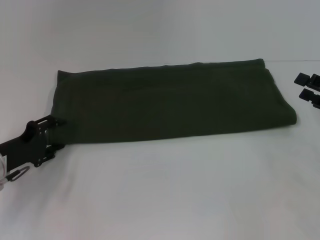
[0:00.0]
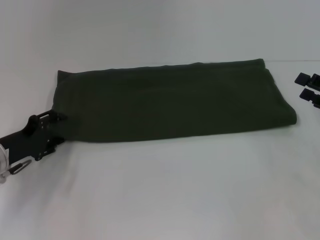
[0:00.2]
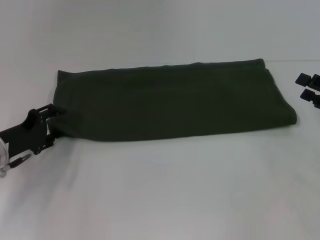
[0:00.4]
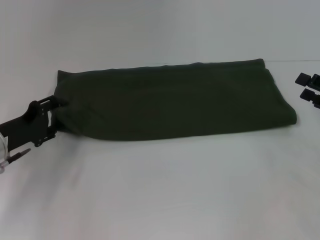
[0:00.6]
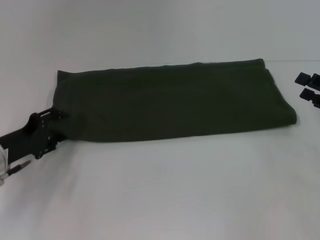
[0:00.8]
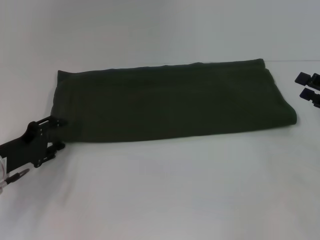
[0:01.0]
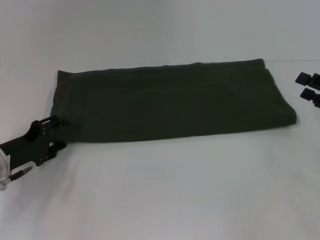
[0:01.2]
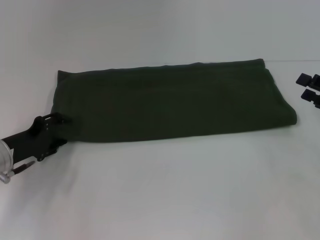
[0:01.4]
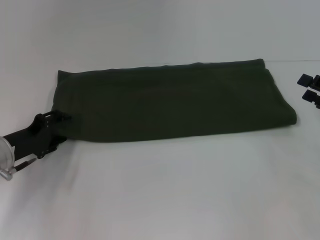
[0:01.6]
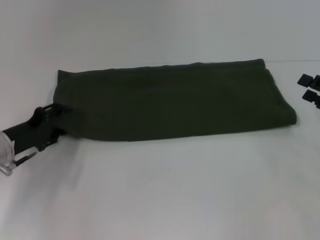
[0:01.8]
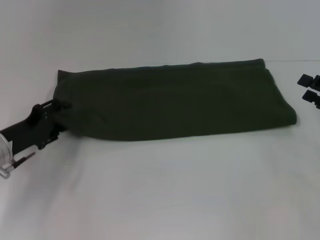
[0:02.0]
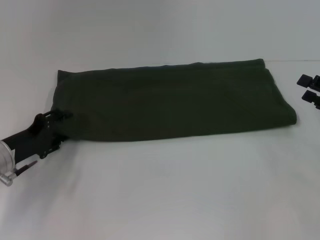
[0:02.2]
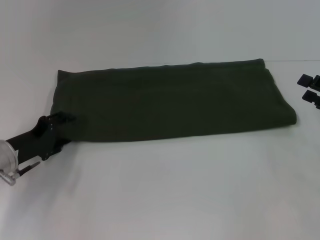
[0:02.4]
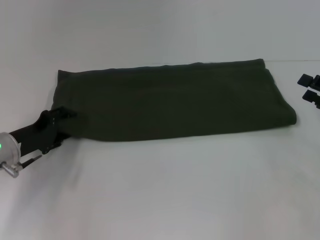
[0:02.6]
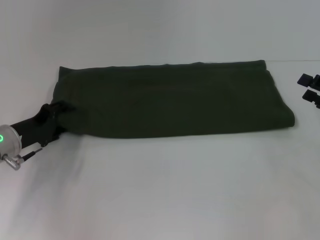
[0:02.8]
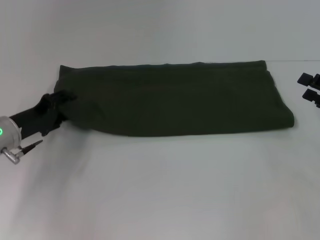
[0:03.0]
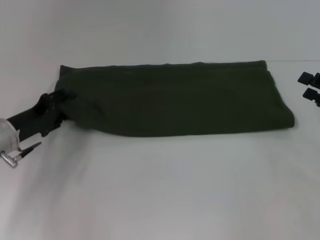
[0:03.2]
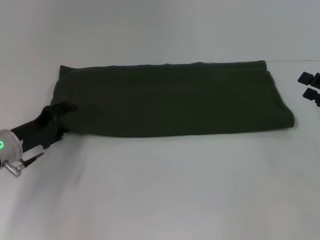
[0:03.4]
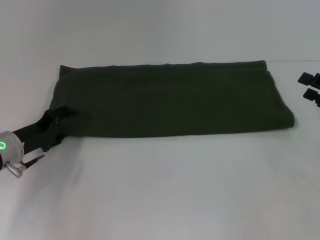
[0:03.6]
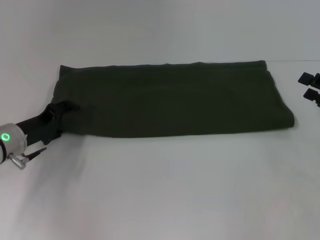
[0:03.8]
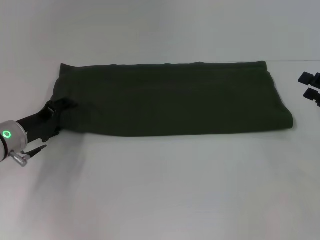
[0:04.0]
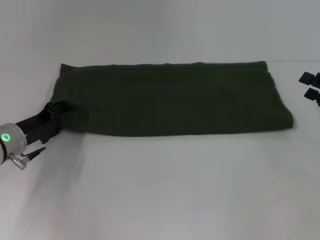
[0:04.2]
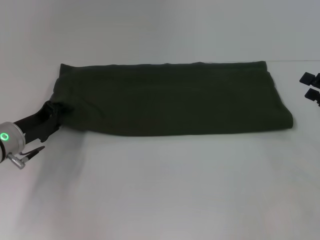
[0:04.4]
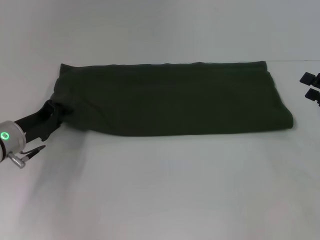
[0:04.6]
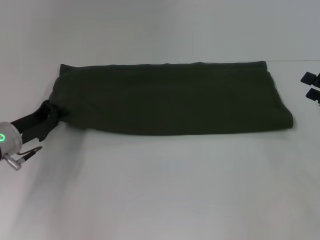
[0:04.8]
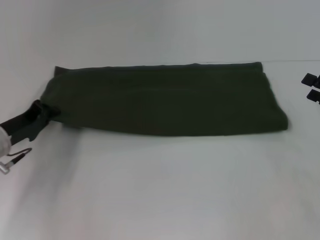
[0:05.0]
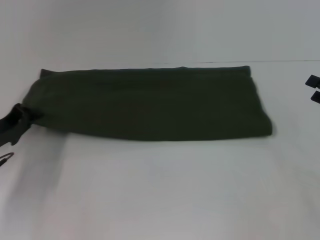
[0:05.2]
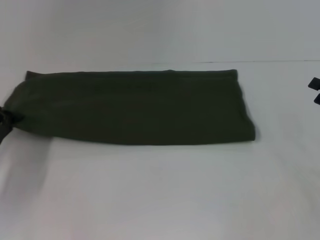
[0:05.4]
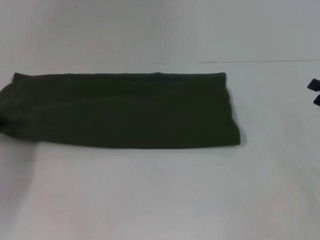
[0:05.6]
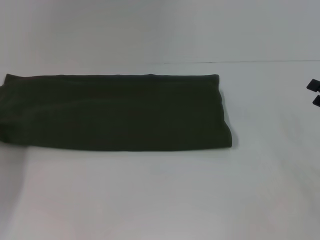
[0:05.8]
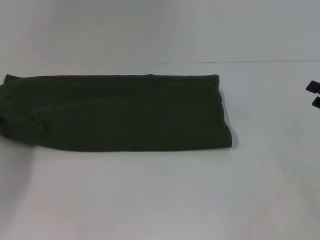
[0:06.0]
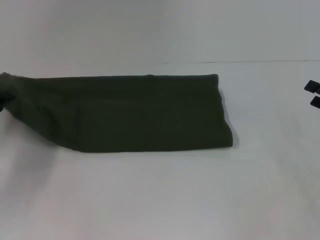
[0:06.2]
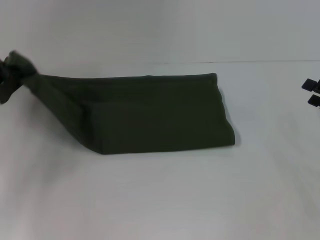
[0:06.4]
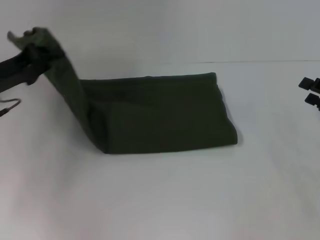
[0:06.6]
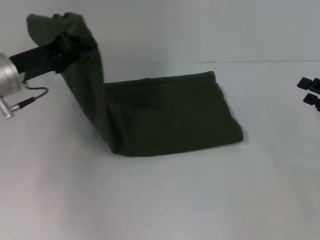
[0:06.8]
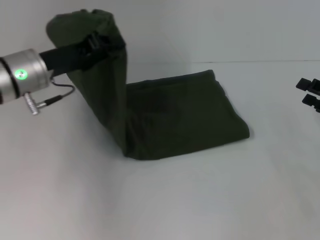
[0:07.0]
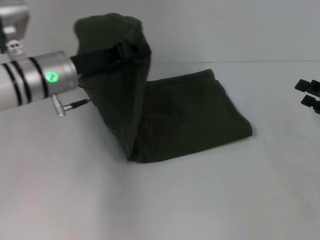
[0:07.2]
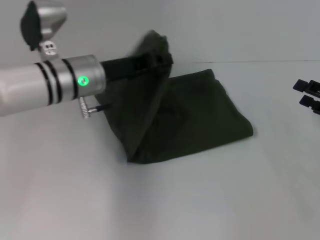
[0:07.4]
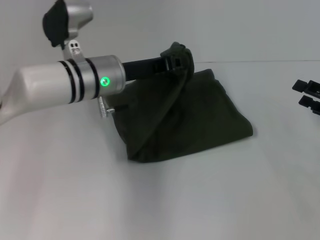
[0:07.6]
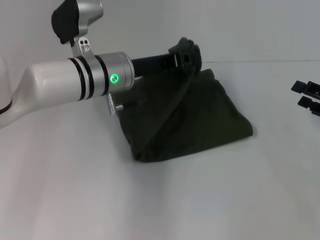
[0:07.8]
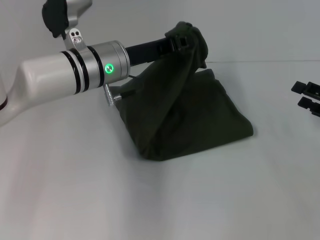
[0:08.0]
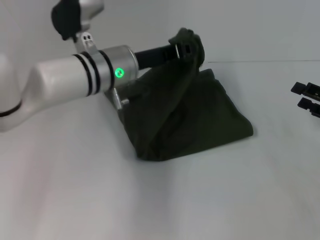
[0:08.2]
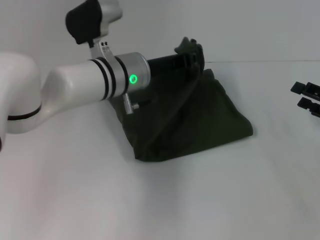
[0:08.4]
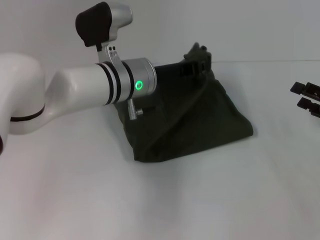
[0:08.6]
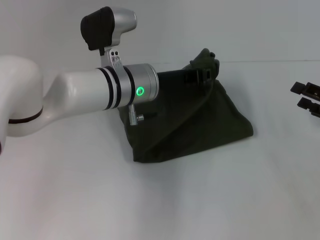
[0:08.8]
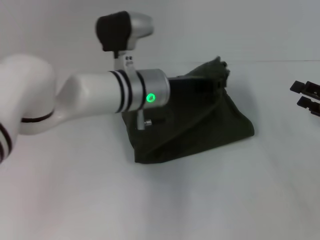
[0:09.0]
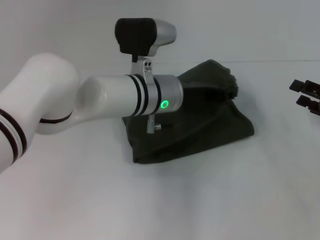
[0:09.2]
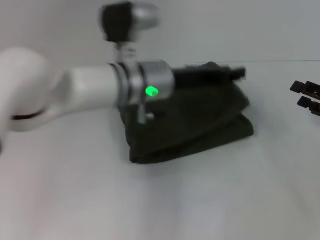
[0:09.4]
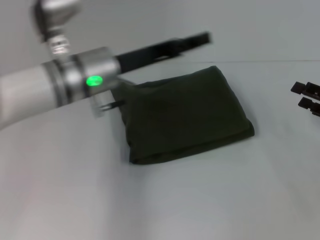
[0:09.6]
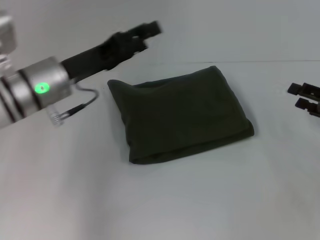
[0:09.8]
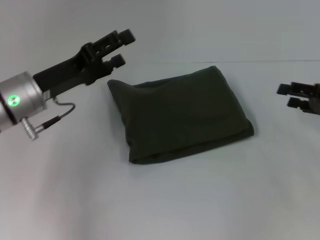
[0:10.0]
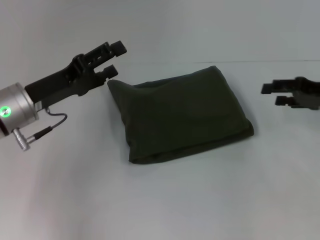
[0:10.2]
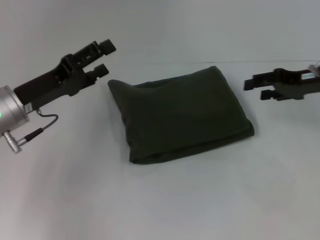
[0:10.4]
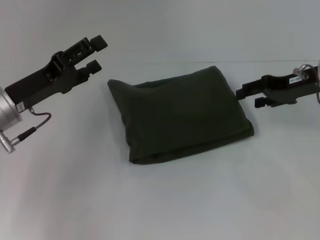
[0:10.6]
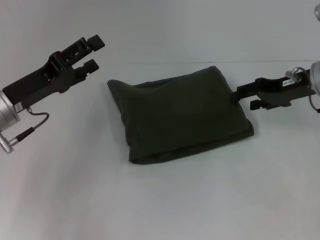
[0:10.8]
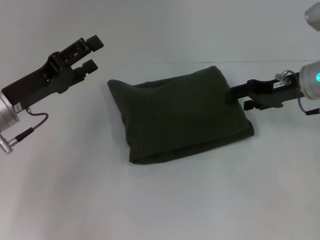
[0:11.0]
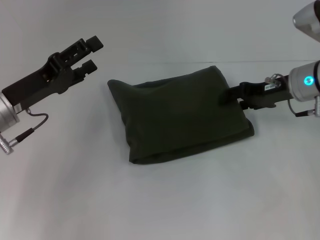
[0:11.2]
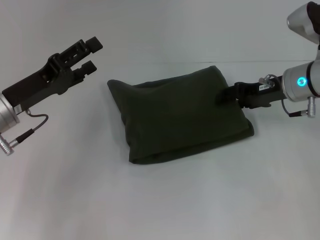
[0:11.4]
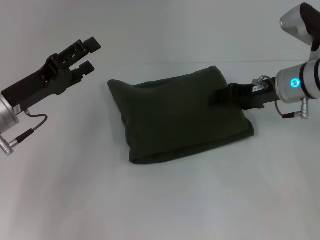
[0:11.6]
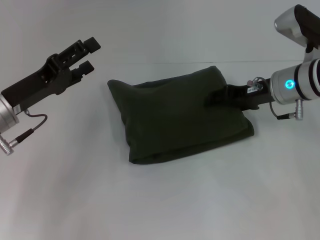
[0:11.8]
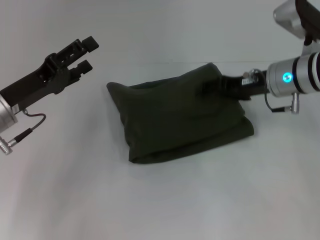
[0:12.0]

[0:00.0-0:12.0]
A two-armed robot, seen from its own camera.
Step, 0:00.0 to 0:09.4: Fold the clothes with your left hand.
0:00.0 to 0:04.4: There are only small adjustments of the grippers.
0:04.4 to 0:06.0: The left gripper travels to the left and backward by roughly 10 cm, and closes.
0:06.0 to 0:07.6: The left gripper travels to the right and forward by roughly 25 cm.
0:07.6 to 0:09.0: The left gripper shifts approximately 5 cm to the right.
0:09.0 to 0:10.4: The right gripper moves forward, upward and to the left, about 15 cm. The left gripper heads to the left, covering roughly 20 cm, and opens its fingers.
0:10.4 to 0:12.0: The right gripper travels to the left by about 10 cm.

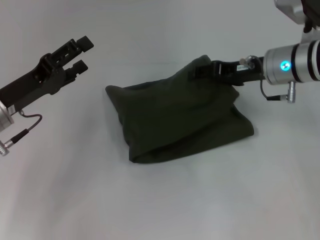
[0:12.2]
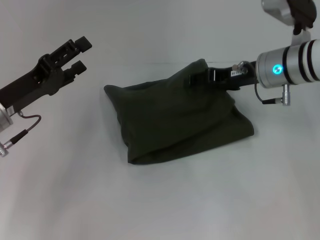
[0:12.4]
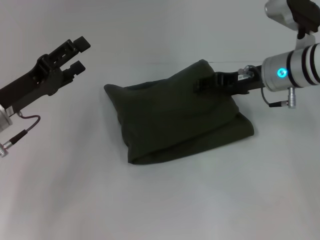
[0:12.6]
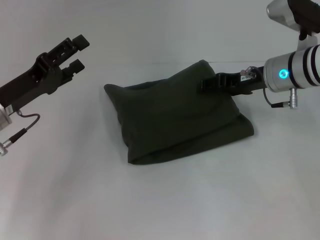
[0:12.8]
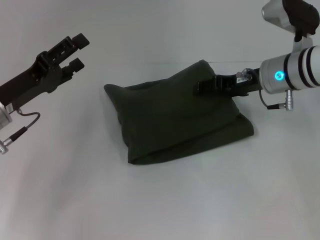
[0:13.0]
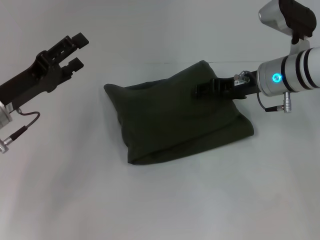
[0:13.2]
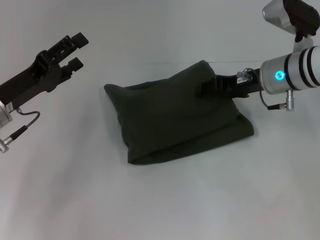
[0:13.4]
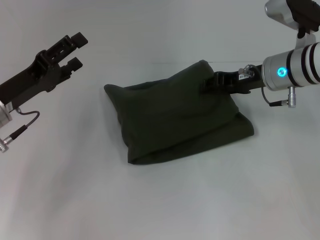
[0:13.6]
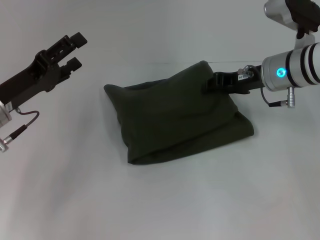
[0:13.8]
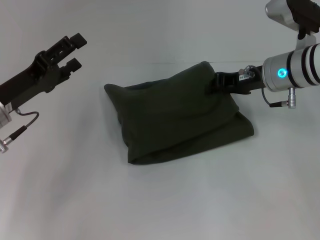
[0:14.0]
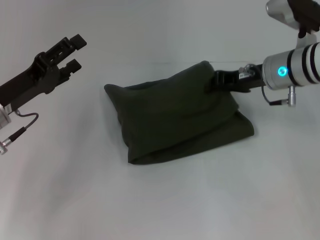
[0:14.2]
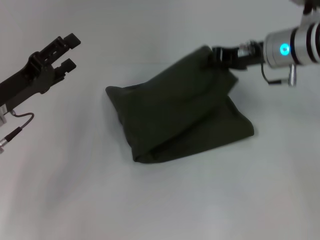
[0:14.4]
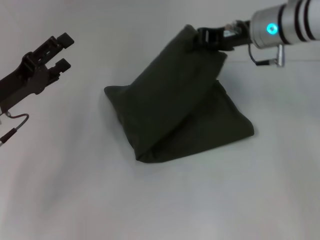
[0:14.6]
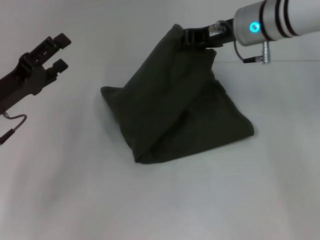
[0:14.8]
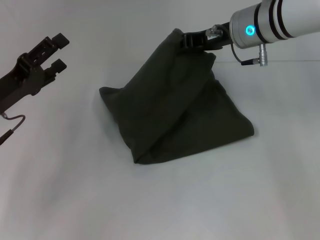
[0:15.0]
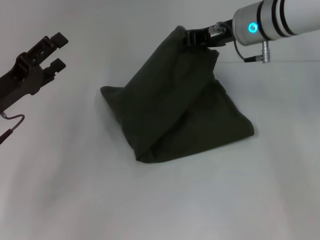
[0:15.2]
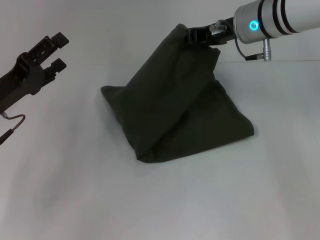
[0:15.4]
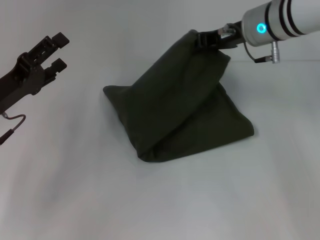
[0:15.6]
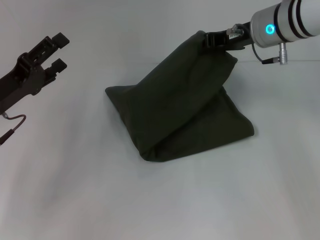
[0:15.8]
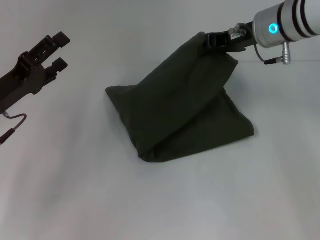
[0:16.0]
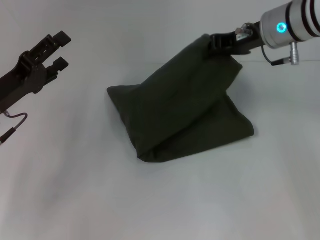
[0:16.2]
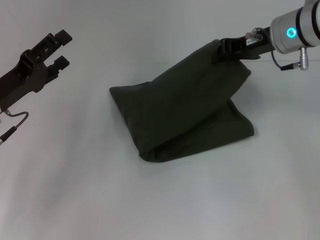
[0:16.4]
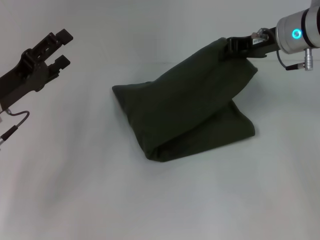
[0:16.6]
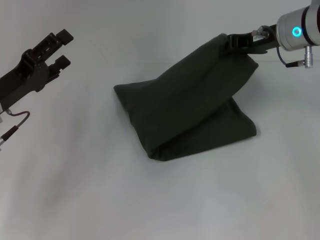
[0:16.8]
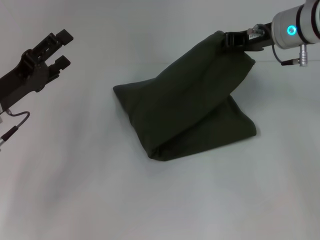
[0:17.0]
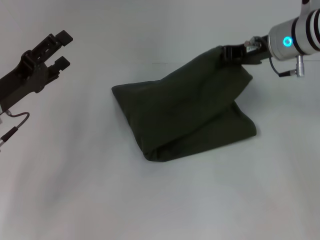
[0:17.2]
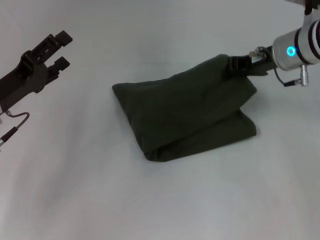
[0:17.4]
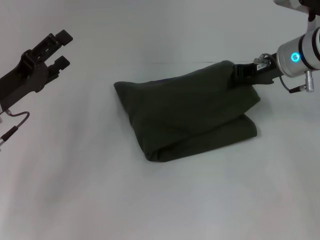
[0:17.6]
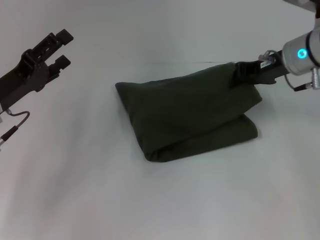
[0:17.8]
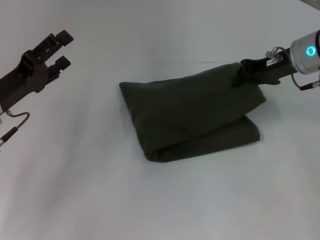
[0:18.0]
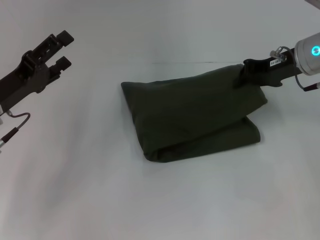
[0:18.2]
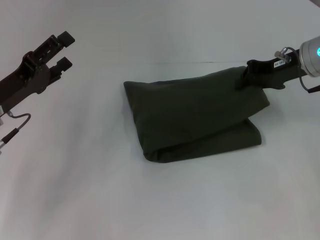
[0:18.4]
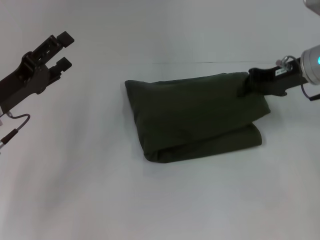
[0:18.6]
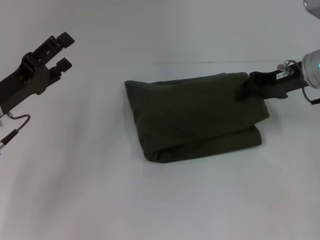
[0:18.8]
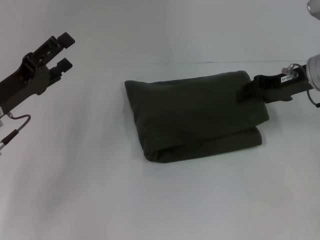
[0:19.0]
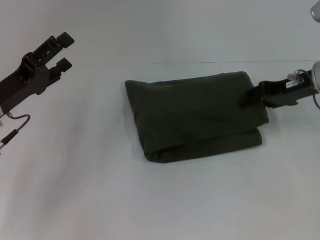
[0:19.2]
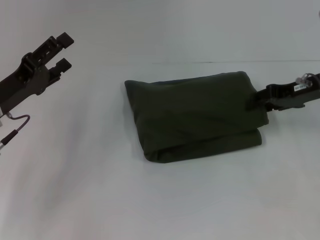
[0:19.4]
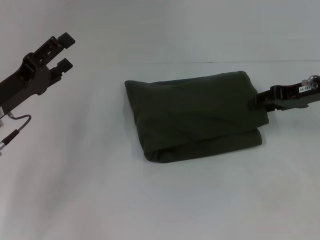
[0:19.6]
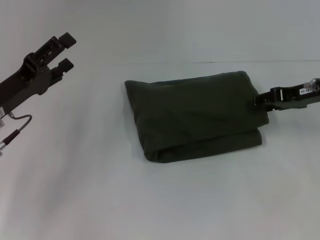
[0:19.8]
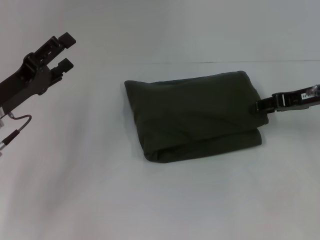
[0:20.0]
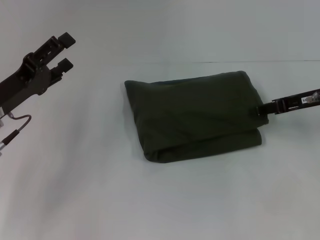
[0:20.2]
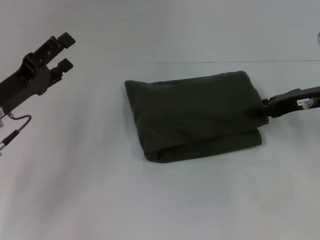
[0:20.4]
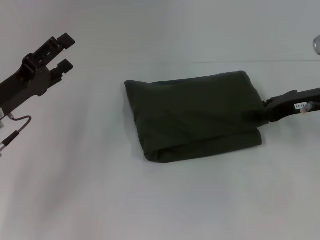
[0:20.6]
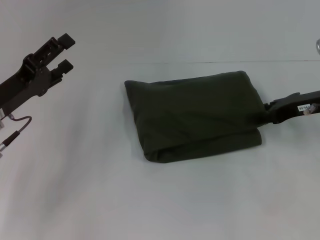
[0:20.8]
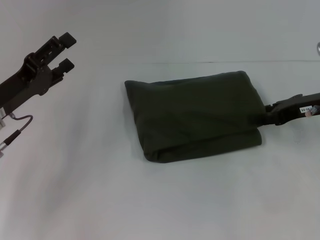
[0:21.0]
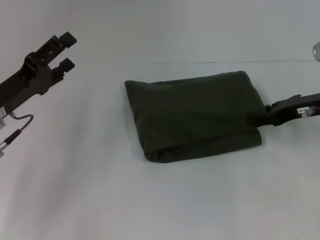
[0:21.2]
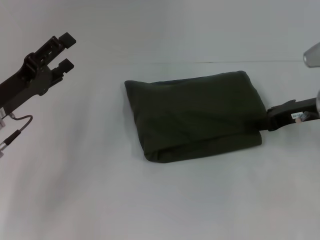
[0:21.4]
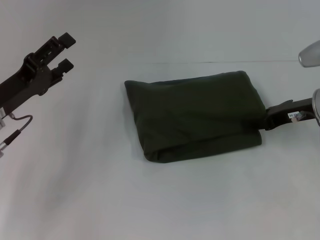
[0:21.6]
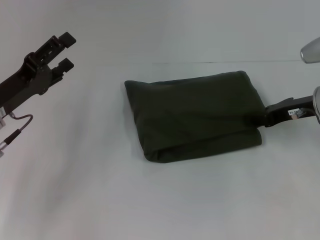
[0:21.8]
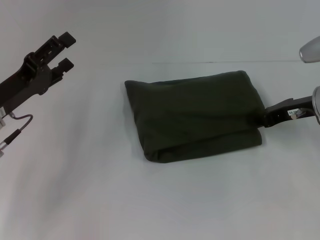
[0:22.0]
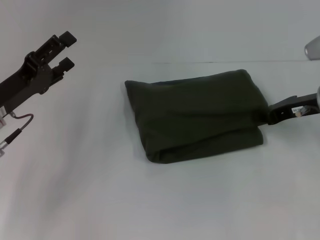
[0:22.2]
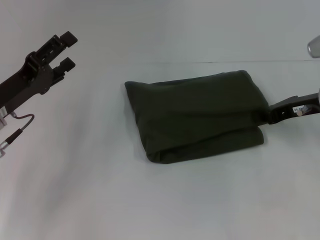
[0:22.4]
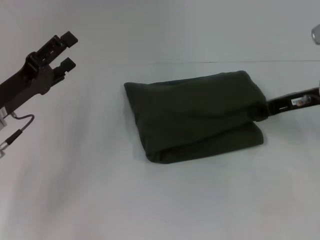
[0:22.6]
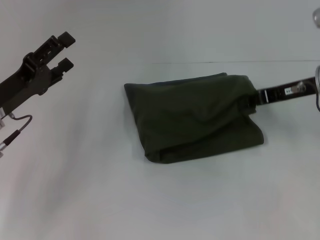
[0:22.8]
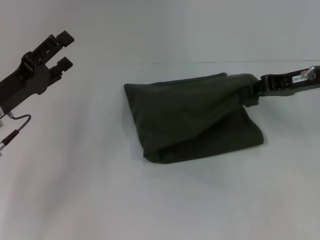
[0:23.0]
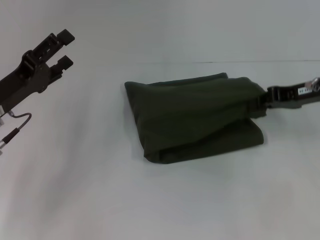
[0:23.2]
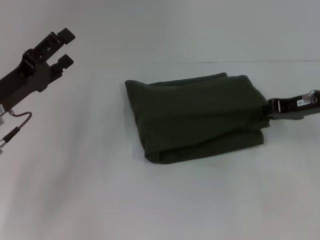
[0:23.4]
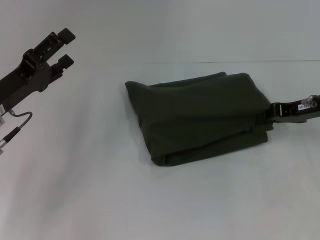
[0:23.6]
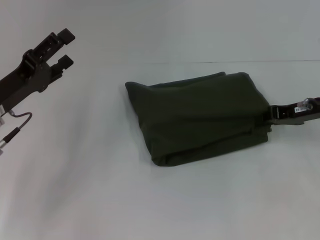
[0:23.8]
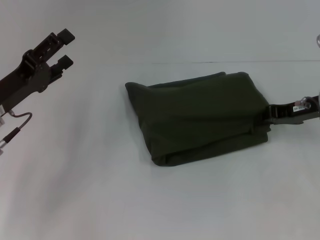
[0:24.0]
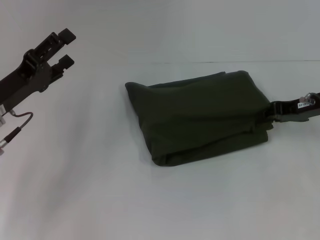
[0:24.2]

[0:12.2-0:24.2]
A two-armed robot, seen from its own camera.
0:12.2 to 0:13.8: The grippers make only small movements.
0:13.8 to 0:15.2: The right gripper travels upward and to the left by about 10 cm, and closes its fingers.
0:15.2 to 0:16.6: The right gripper goes some 5 cm to the right.
0:16.6 to 0:18.2: There are only small adjustments of the grippers.
0:18.2 to 0:19.8: The right gripper shifts by roughly 5 cm, and opens.
0:21.2 to 0:22.6: The right gripper closes up.
